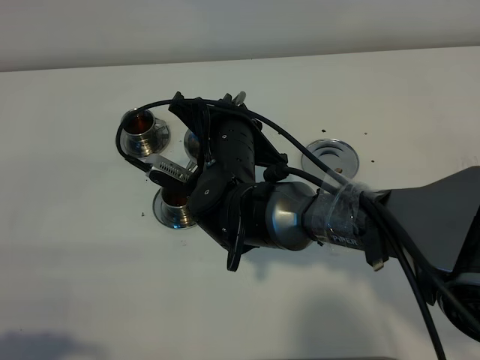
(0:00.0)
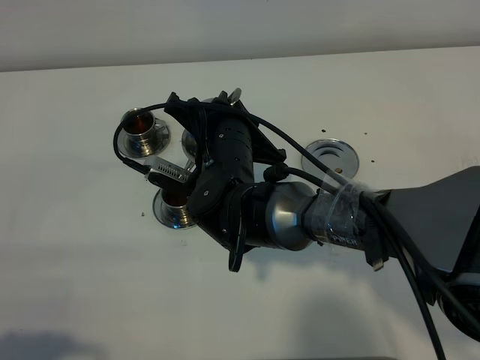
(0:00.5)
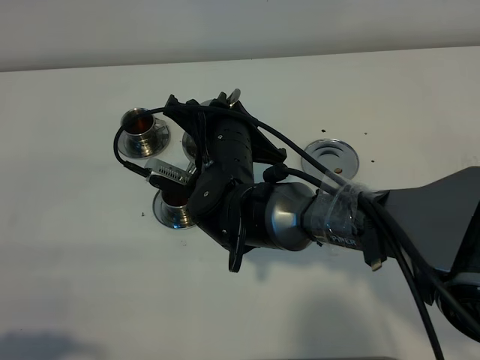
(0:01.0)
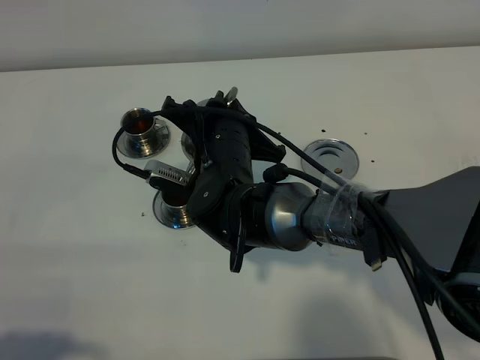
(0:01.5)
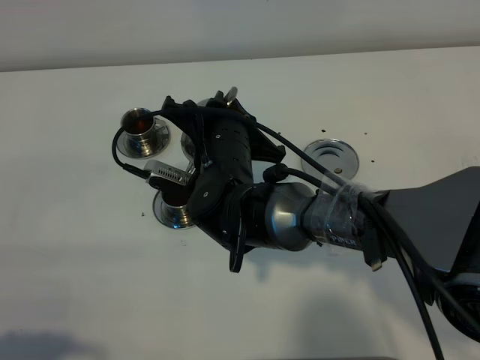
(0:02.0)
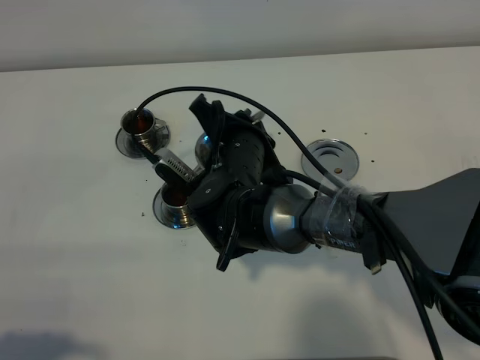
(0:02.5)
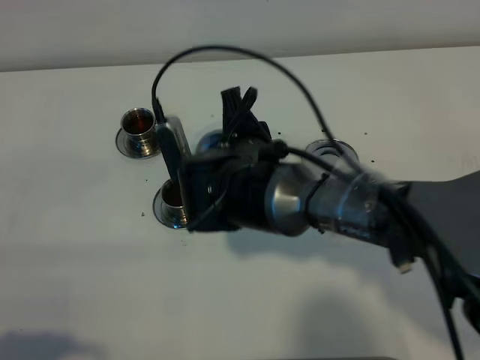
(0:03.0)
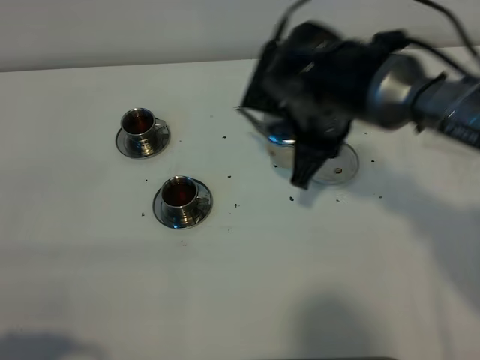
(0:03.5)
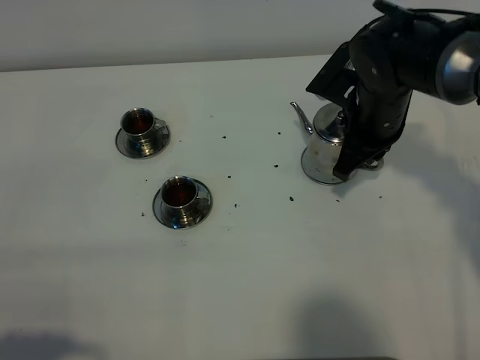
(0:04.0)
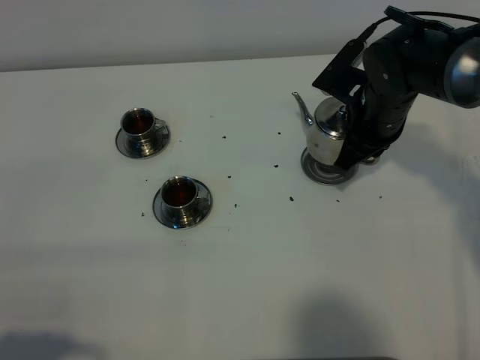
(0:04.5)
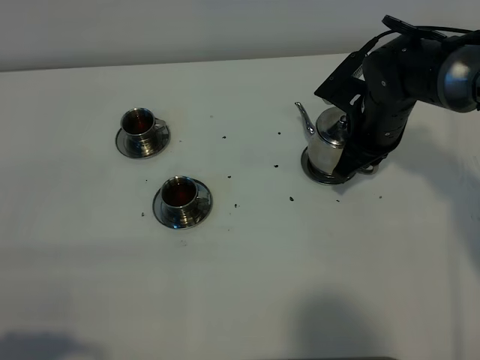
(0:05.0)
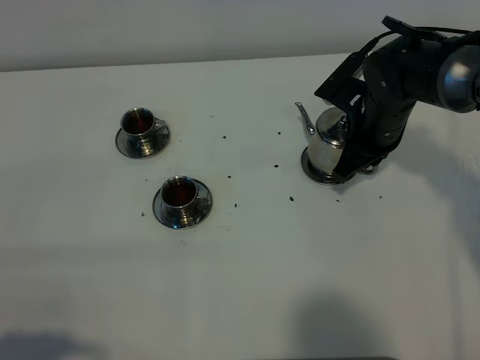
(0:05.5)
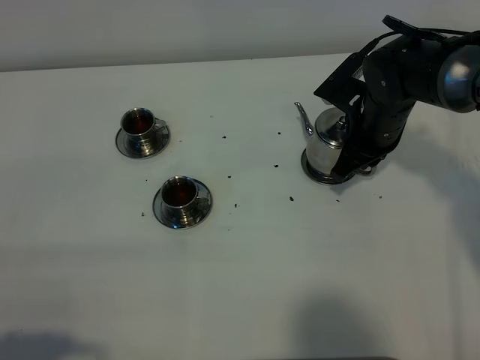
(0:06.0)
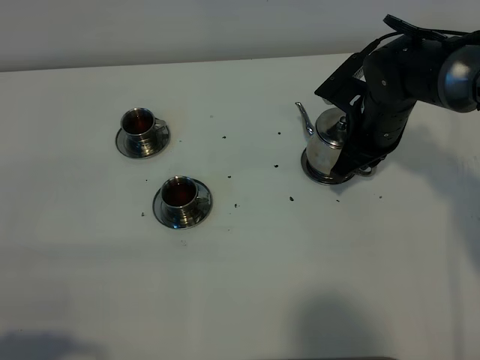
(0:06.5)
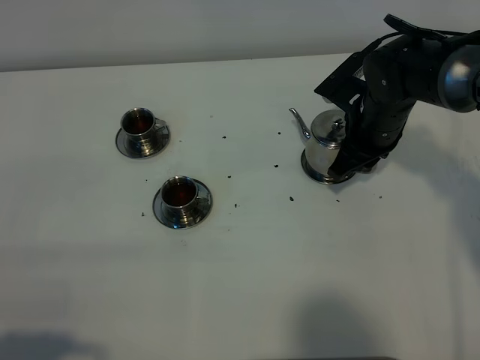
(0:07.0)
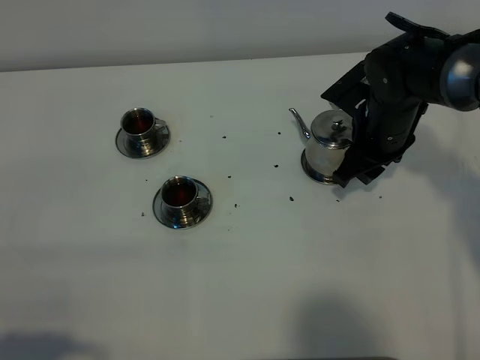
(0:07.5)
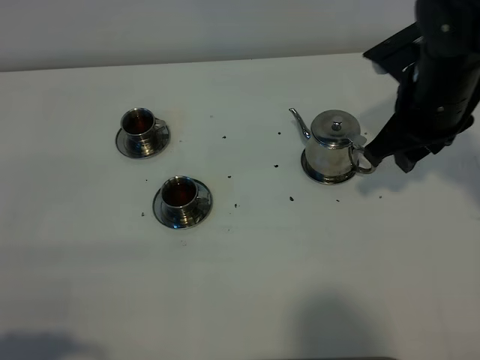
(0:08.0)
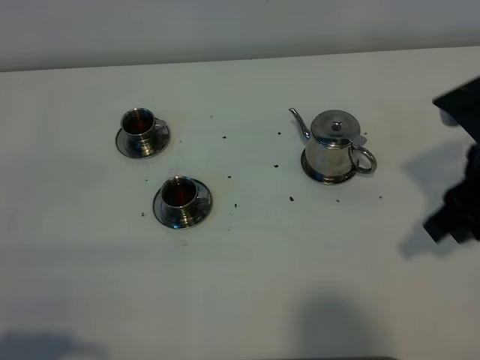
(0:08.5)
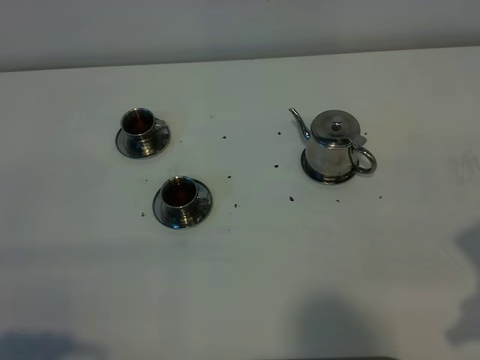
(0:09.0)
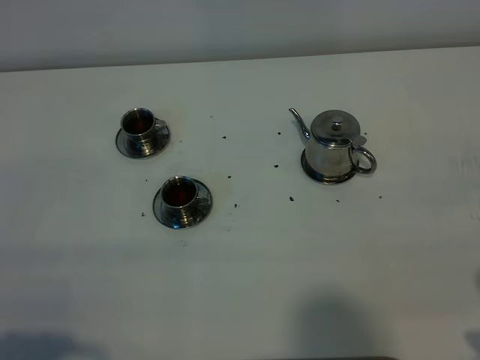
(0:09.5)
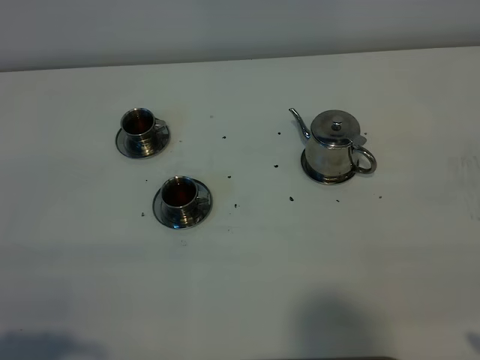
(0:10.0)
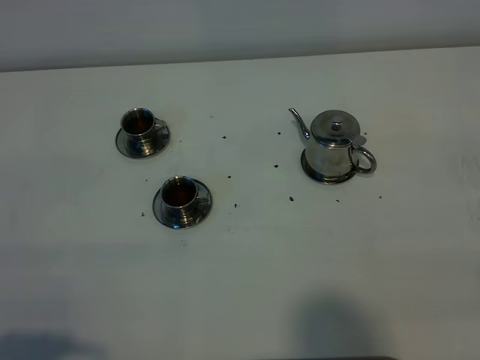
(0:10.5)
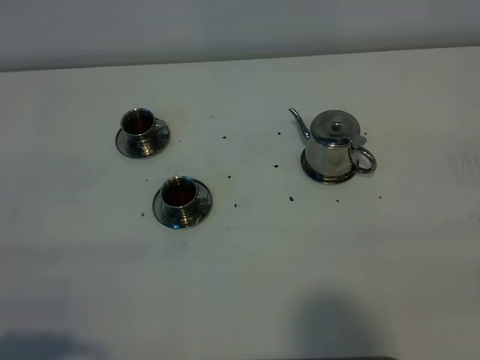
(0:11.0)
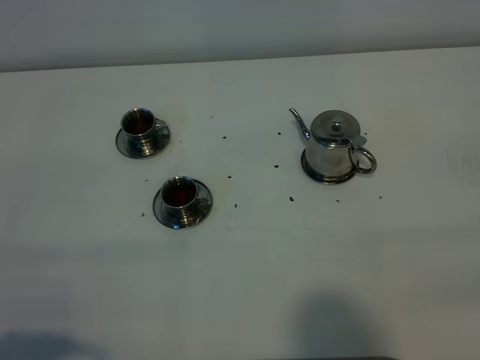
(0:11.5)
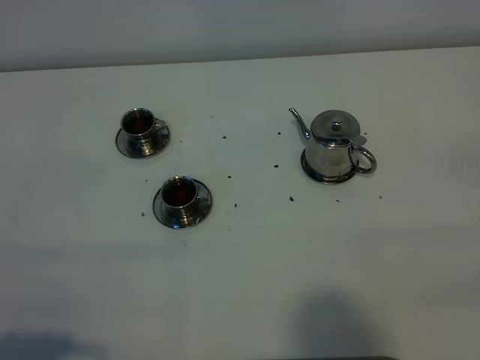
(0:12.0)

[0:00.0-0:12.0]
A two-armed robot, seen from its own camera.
Task of the whole recording: grasp the stainless steel teapot and pour the tea into the two stainless steel teacups one by one, put the stainless steel teapot back in its original place.
Step, 0:00.0 to 0:02.5: Pour tea into the teacup with the right gripper.
0:00.0 to 0:02.0: The grippers make only small movements.
0:02.0 to 0:04.0: The right gripper travels to the right by roughly 20 cm.
0:04.0 to 0:06.0: The grippers make only small movements.
0:06.0 to 0:08.0: The right gripper heads upward and backward, covering roughly 15 cm, and opens its fingers.
0:08.0 to 0:10.0: The right gripper is displaced backward by roughly 30 cm.

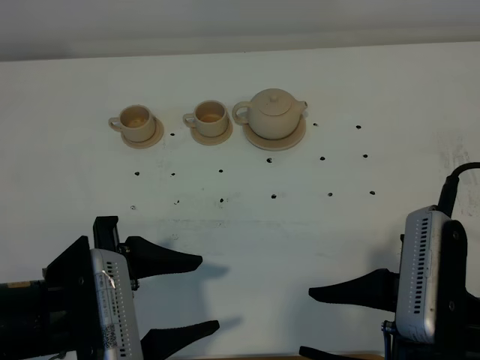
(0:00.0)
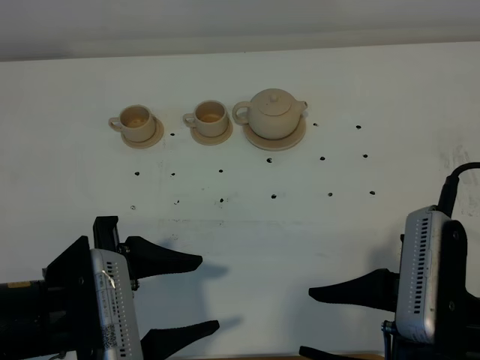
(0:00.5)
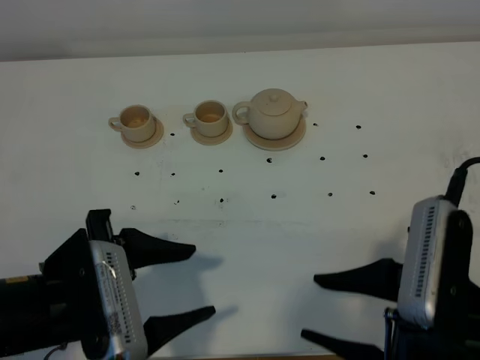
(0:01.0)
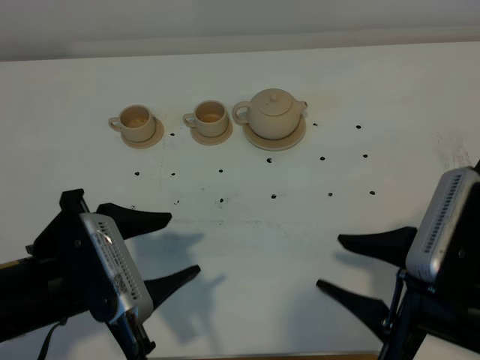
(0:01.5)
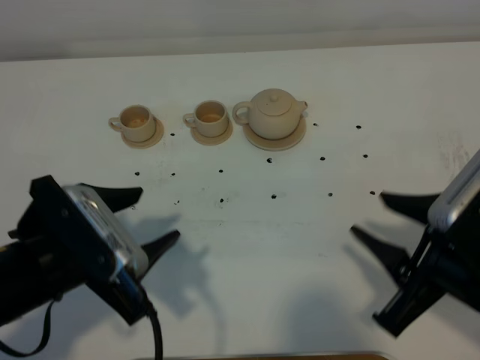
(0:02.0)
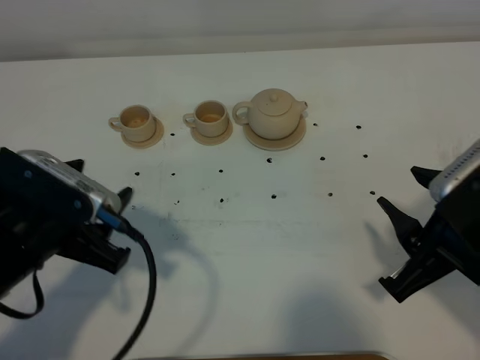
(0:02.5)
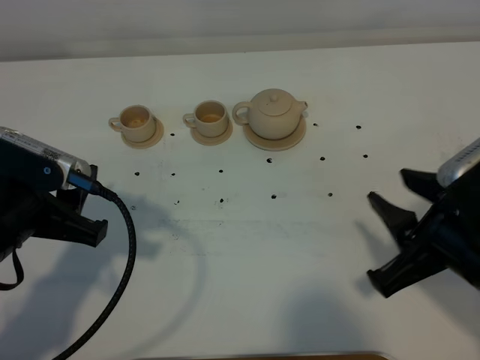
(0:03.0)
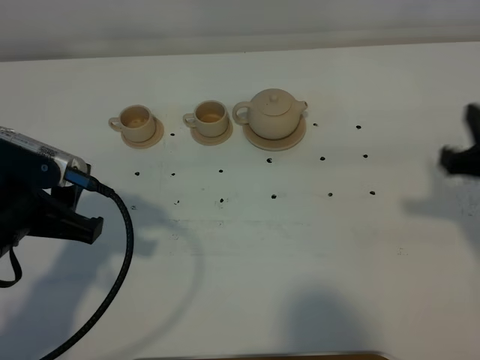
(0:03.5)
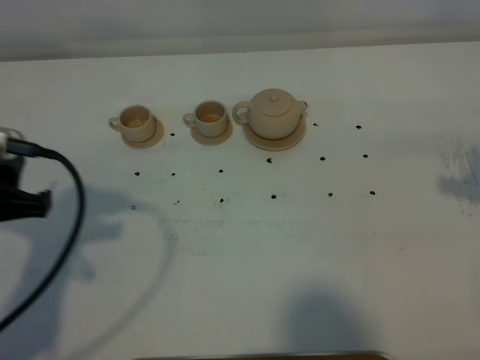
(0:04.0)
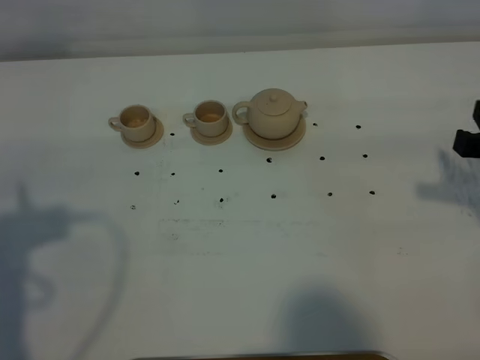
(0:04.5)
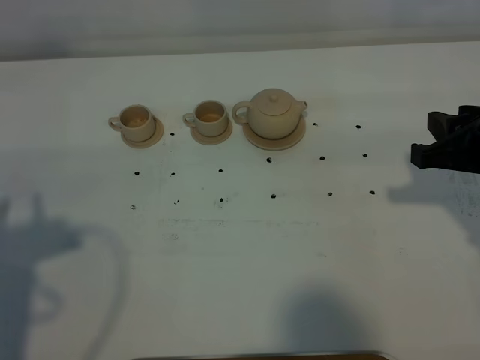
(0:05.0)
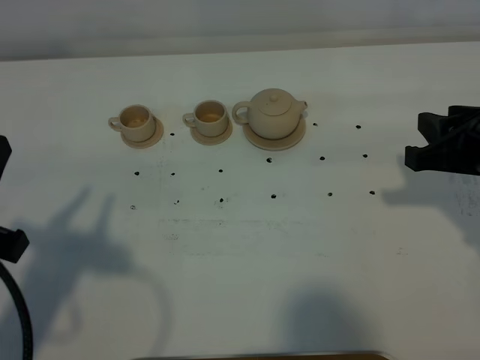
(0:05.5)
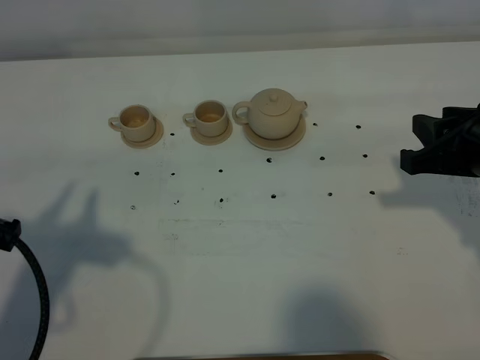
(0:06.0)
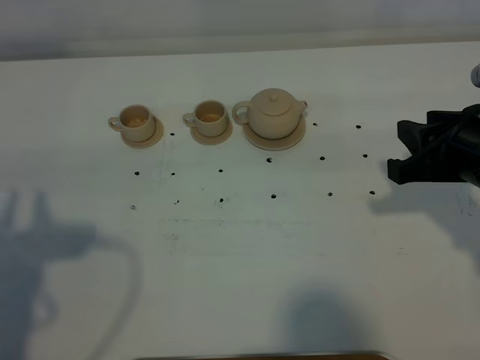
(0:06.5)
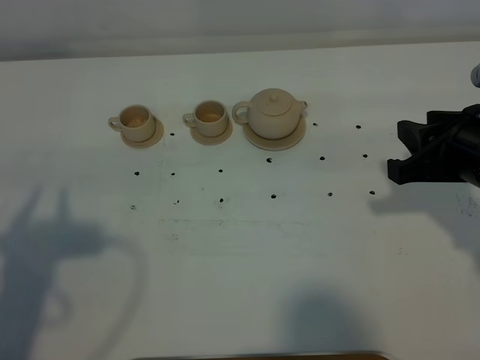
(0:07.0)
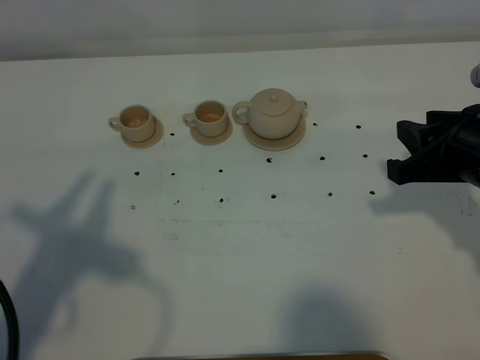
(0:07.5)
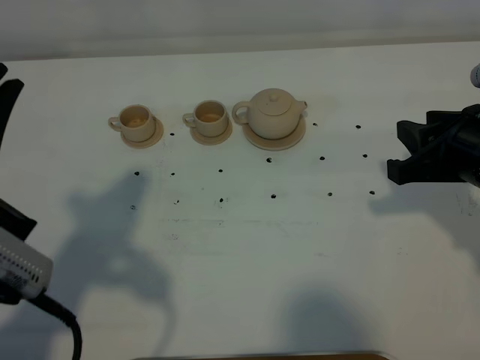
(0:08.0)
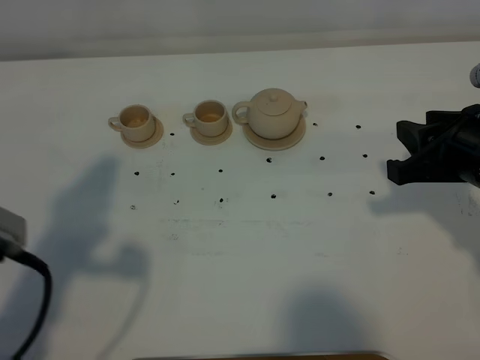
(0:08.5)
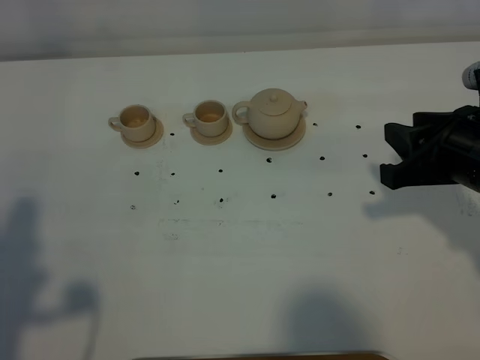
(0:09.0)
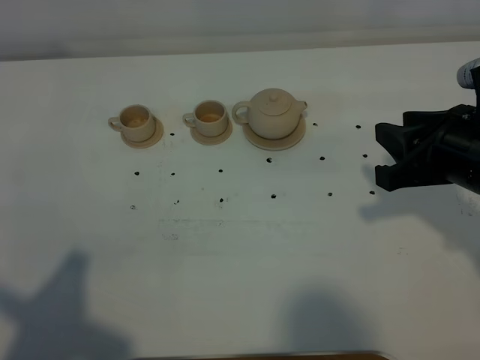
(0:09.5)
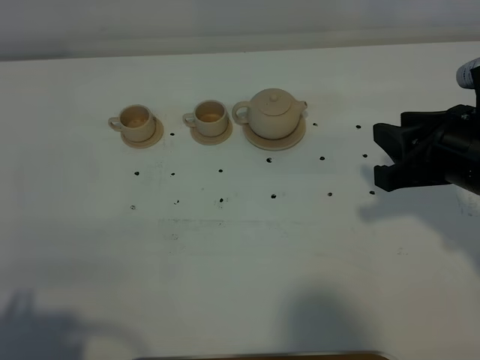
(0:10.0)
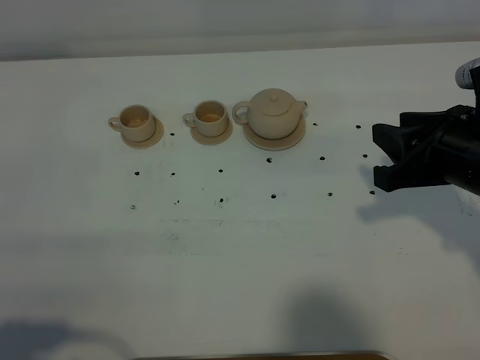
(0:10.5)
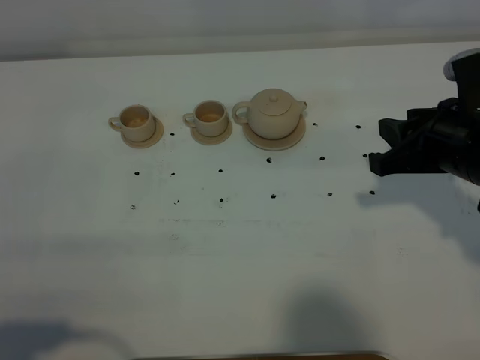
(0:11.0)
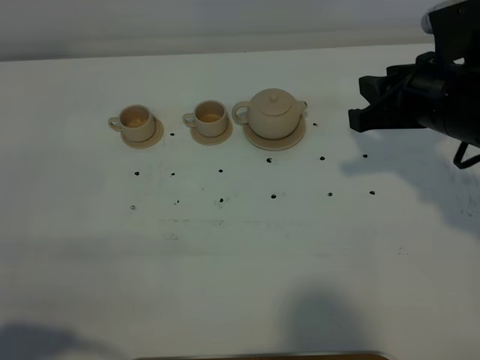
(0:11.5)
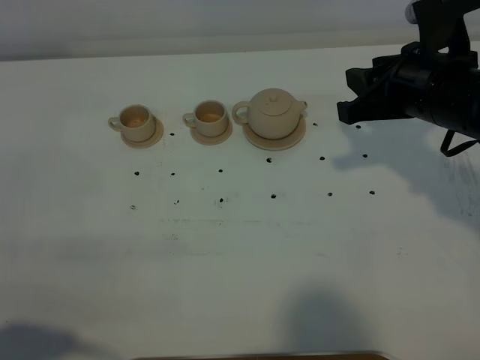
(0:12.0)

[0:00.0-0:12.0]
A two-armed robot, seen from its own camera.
Task of the whole recording: grasp the brown teapot and pour the tea into the two brown teacups one by one, put the brown teapot back in its original place.
0:00.0 to 0:02.0: The right gripper moves roughly 5 cm.
0:02.0 to 0:04.0: The right gripper goes about 15 cm to the right and forward. Meanwhile the left gripper shifts approximately 10 cm to the left.
0:04.0 to 0:06.0: The left gripper changes place by roughly 5 cm; the right gripper travels to the left by approximately 5 cm.
0:06.0 to 0:08.0: The left gripper heads upward, covering about 5 cm, and closes.
0:08.0 to 0:10.0: The left gripper heads backward, covering roughly 10 cm.
0:10.0 to 0:12.0: The right gripper is displaced forward by some 10 cm.

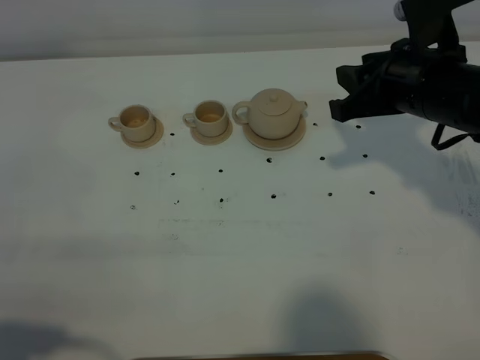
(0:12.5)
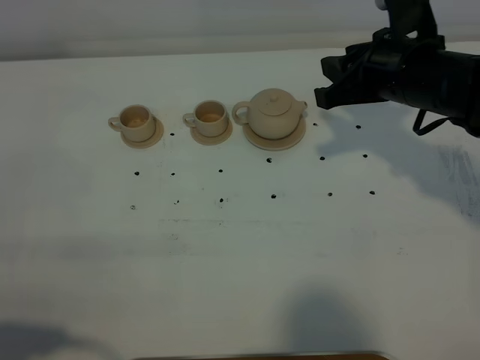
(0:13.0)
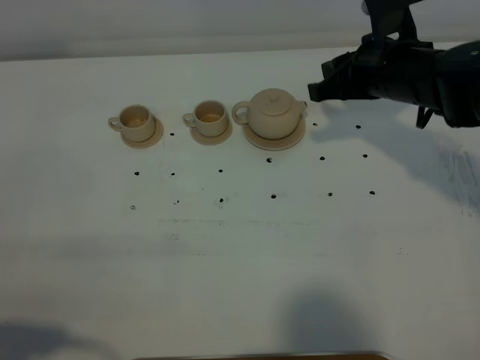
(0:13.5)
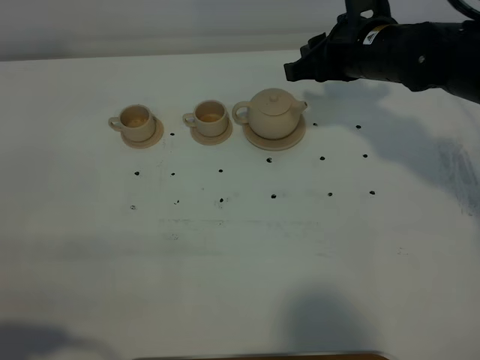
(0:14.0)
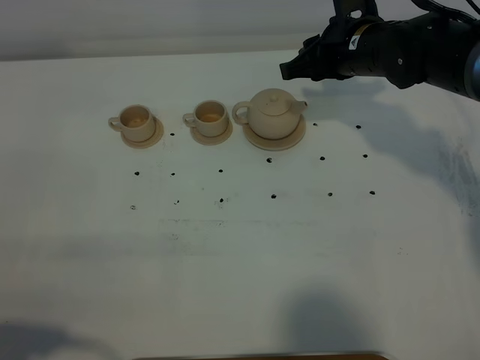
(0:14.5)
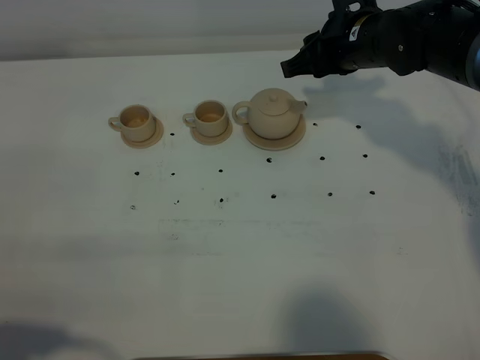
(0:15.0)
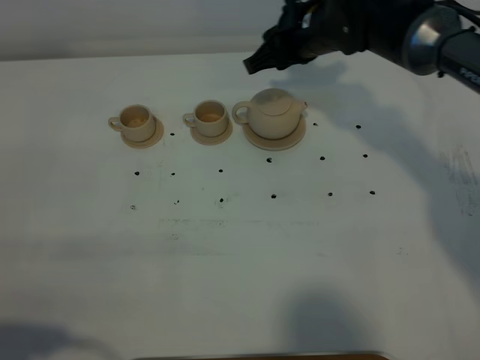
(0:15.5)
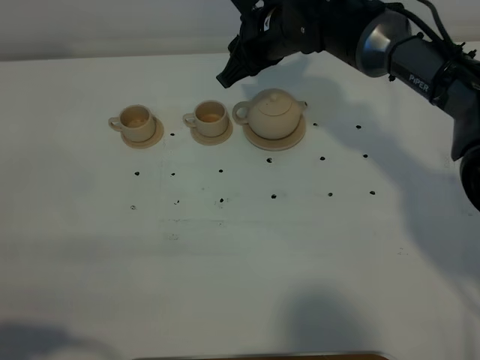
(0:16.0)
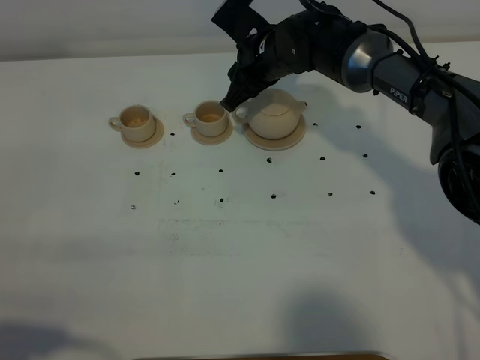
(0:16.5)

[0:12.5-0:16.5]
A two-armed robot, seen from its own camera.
Task of the whole recording: grasp the brown teapot and pour the tea into the two brown teacups one by one, put the brown teapot back in its original place.
0:12.5 to 0:14.5: The right gripper shifts approximately 10 cm forward.
0:14.5 to 0:16.5: The right gripper travels to the left and forward by about 10 cm.
